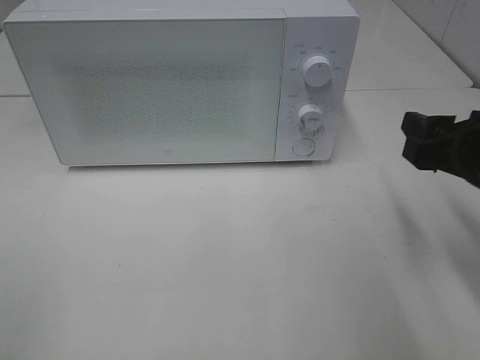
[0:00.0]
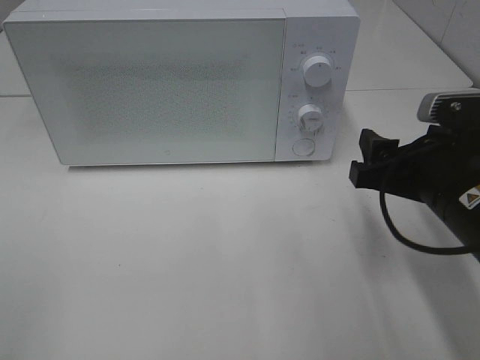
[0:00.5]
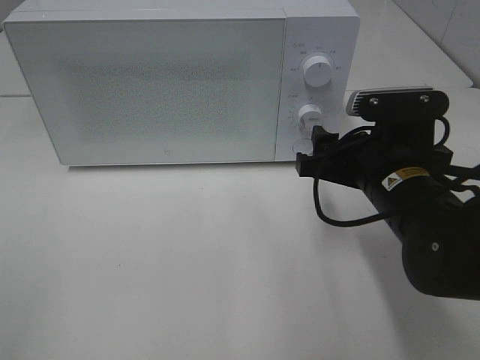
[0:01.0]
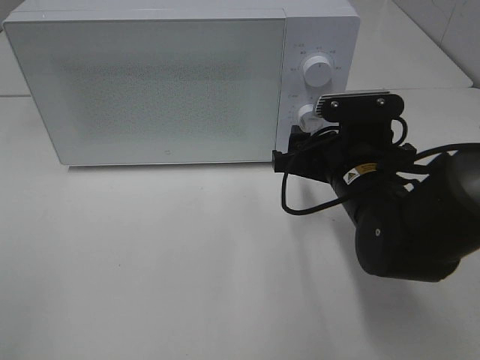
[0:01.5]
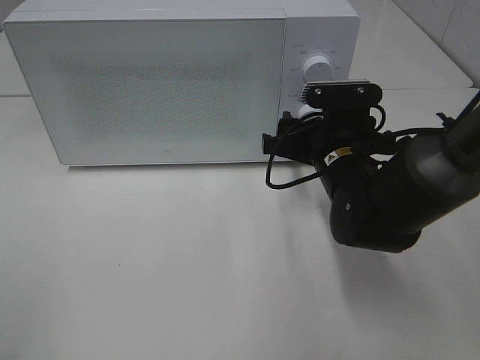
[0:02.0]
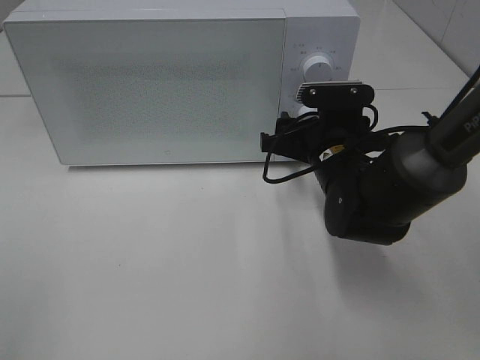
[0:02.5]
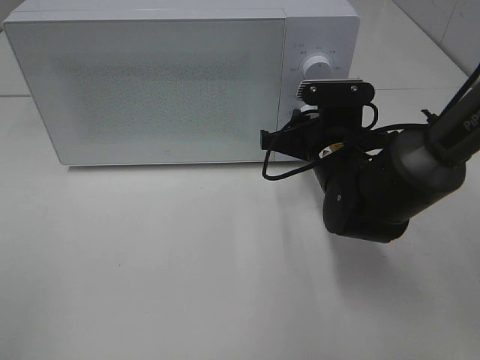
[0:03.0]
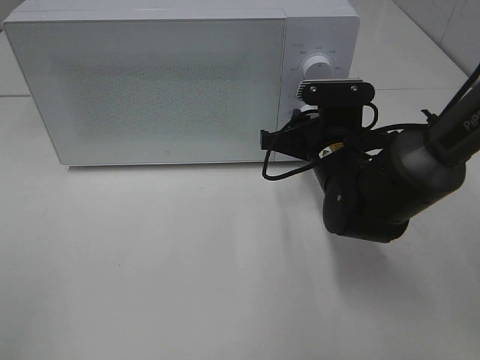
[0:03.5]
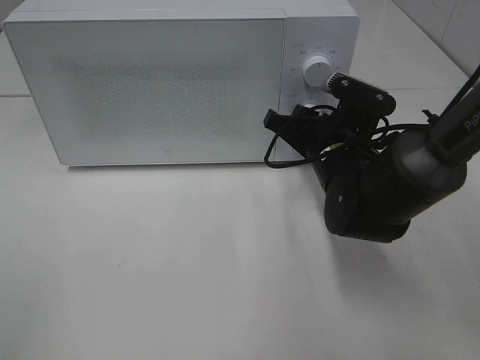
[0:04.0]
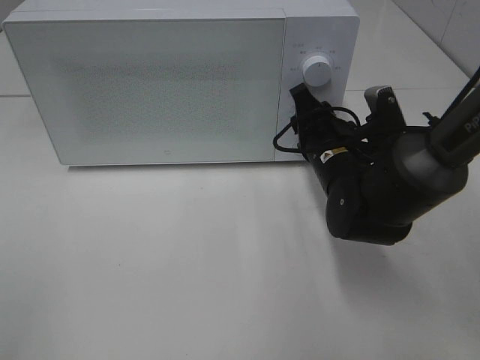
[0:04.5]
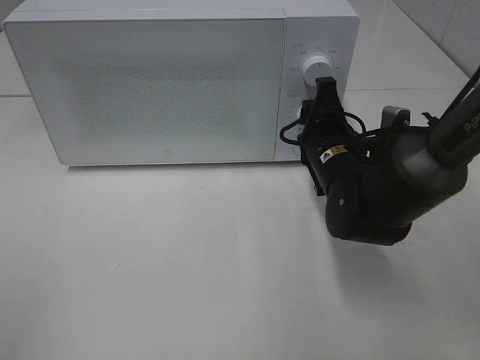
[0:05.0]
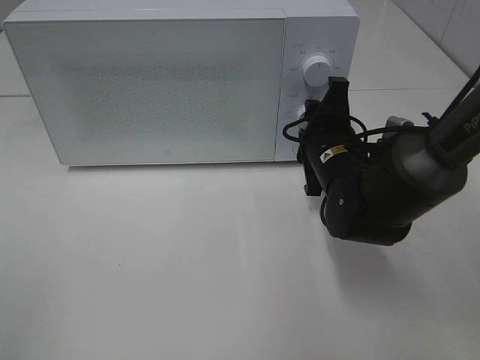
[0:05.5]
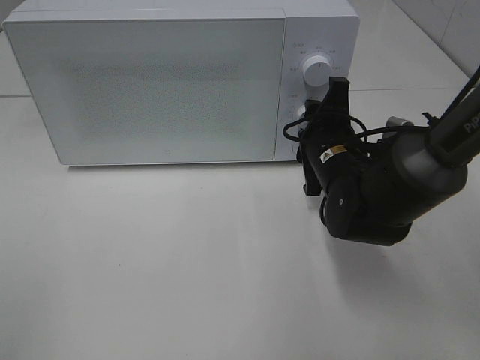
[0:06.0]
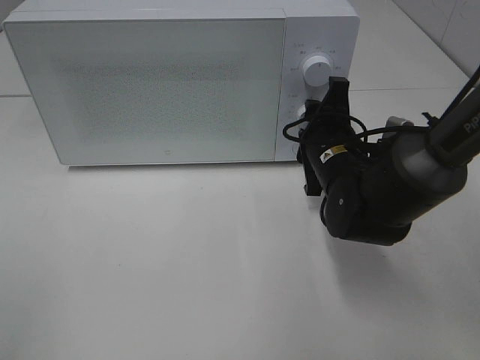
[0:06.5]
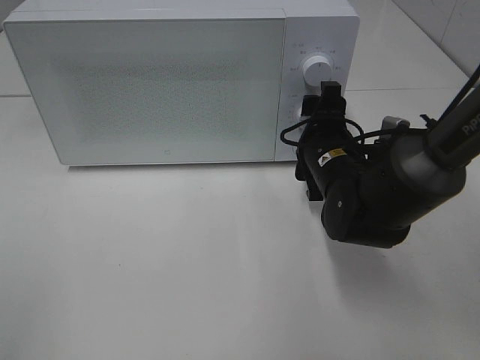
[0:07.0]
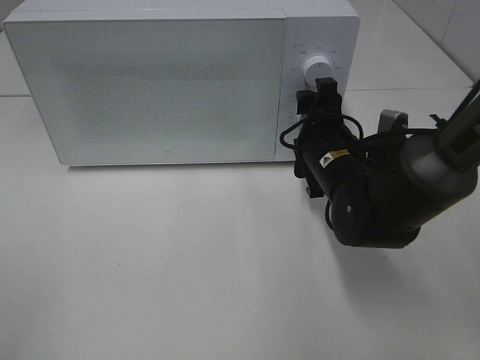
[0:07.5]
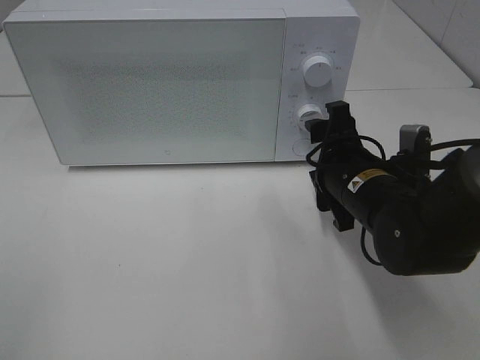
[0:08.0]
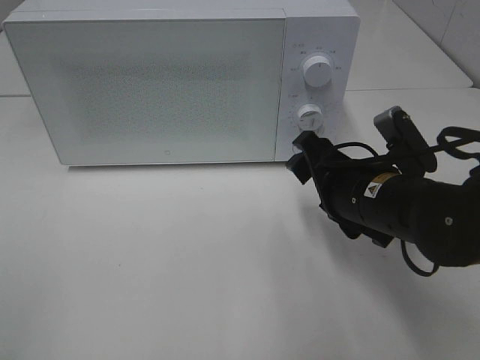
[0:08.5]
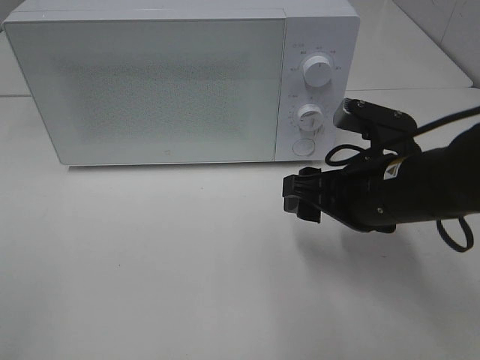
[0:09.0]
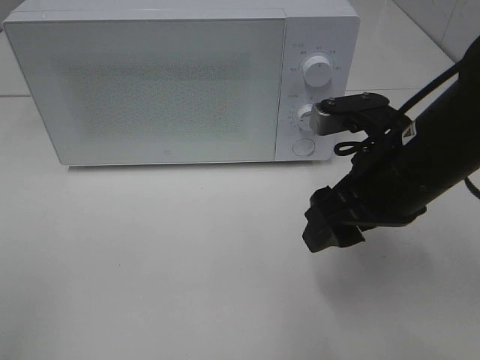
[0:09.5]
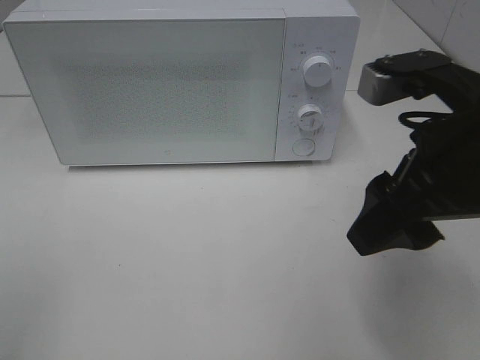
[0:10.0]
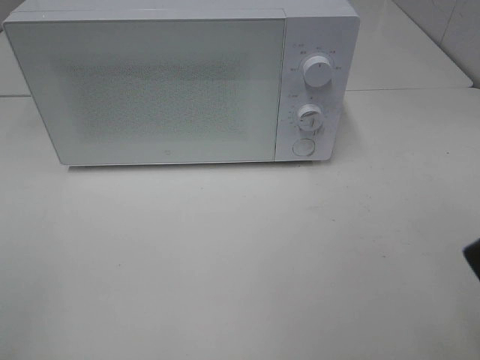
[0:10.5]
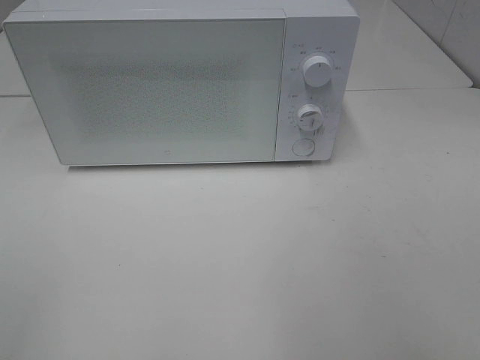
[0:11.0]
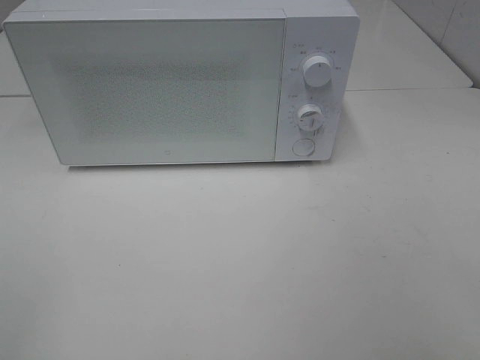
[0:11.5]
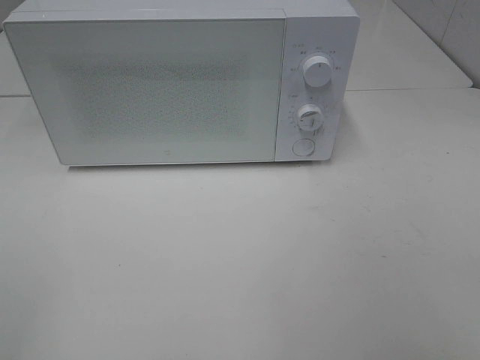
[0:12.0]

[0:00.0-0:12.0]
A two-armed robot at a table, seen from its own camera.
Task of the whole recording: Heat Sandwich.
Step, 0:00.0 to 0:08.0: Right hand: twist timer button.
0:00.0 to 0:02.0: The right gripper moves to the left, forward and downward, approximately 20 cm.
0:02.0 to 0:04.0: The right gripper closes up.
0:06.0 to 0:08.0: The right gripper heads backward, covering some 5 cm.
0:08.0 to 0:10.0: The right gripper goes approximately 15 cm upward and backward.
0:10.0 to 0:12.0: The right gripper shifts about 20 cm backward and to the right.

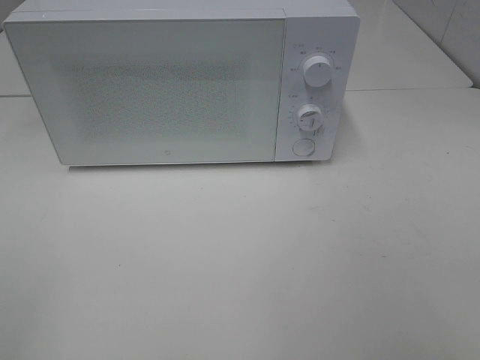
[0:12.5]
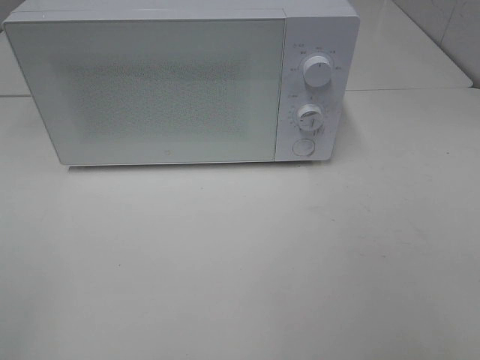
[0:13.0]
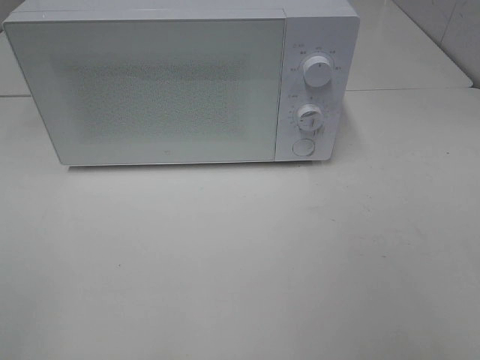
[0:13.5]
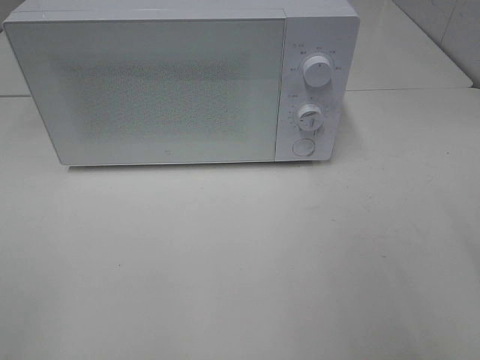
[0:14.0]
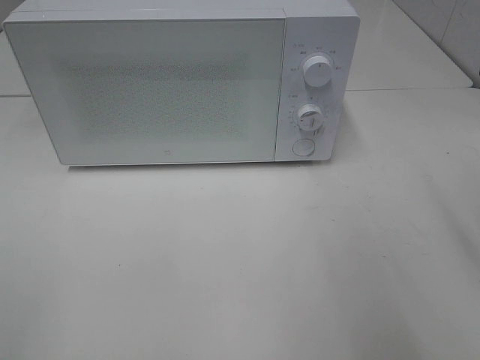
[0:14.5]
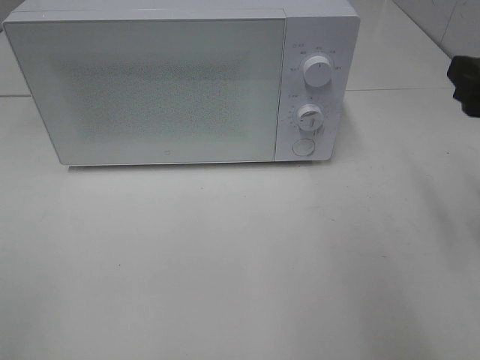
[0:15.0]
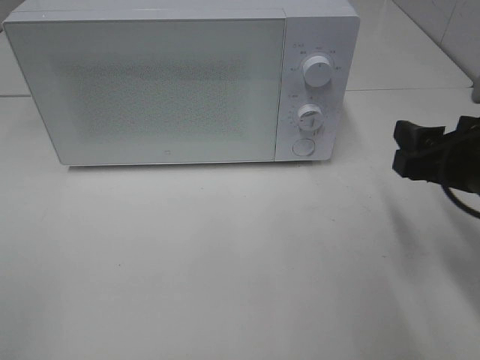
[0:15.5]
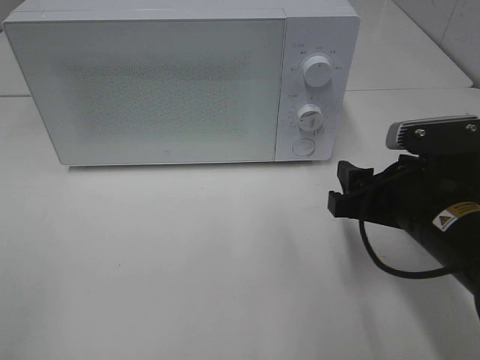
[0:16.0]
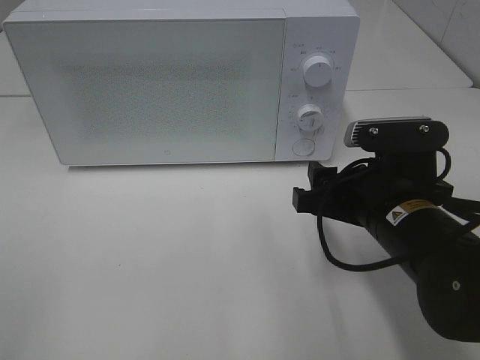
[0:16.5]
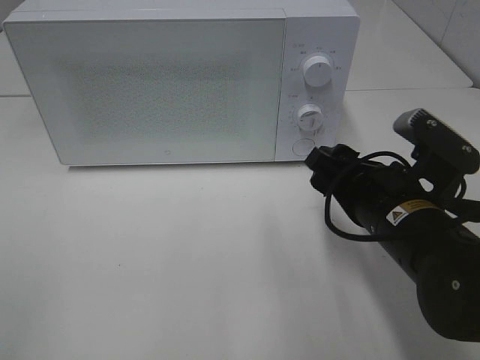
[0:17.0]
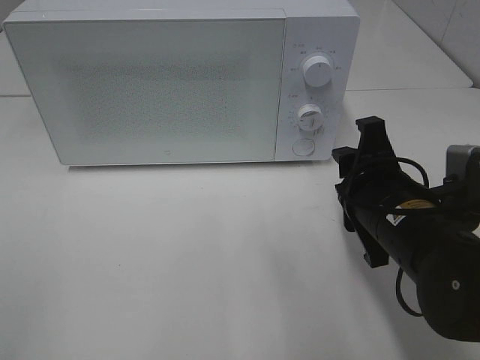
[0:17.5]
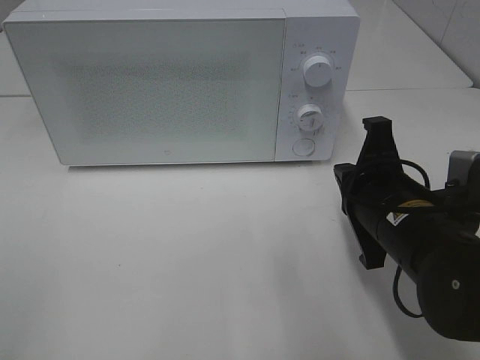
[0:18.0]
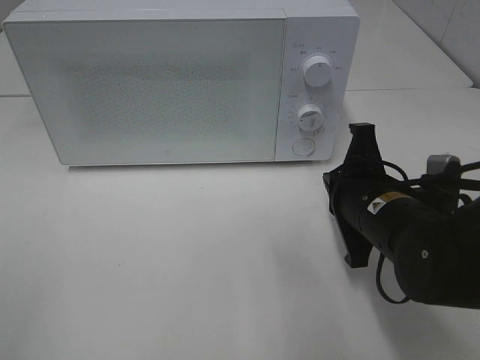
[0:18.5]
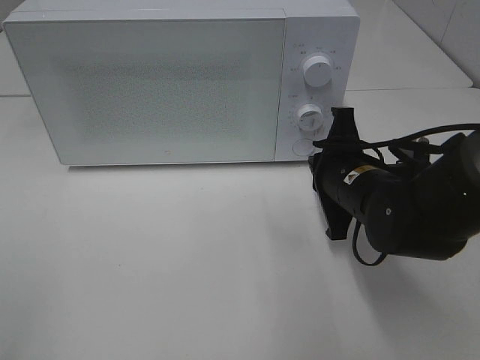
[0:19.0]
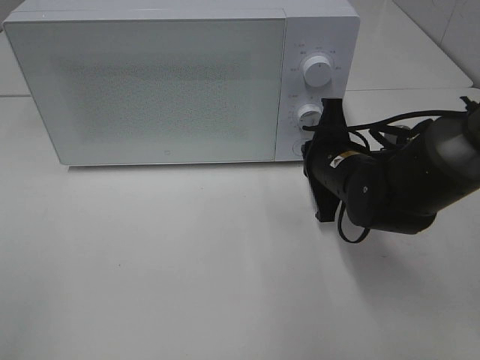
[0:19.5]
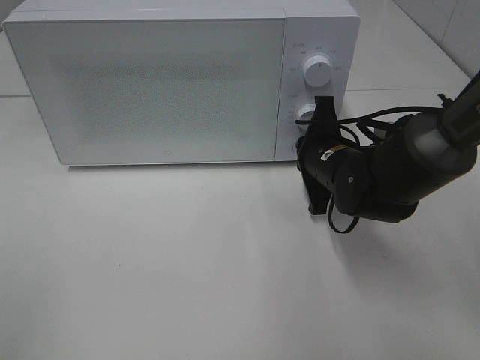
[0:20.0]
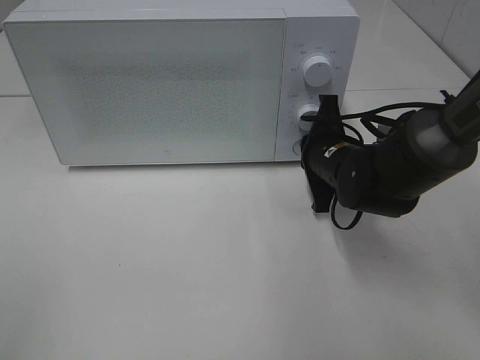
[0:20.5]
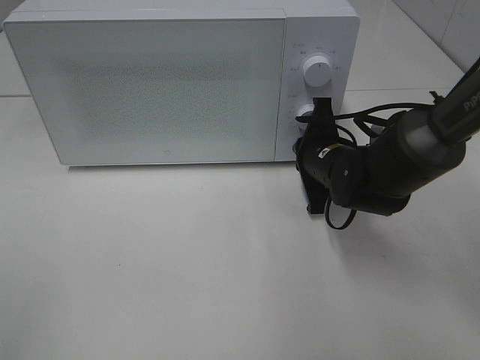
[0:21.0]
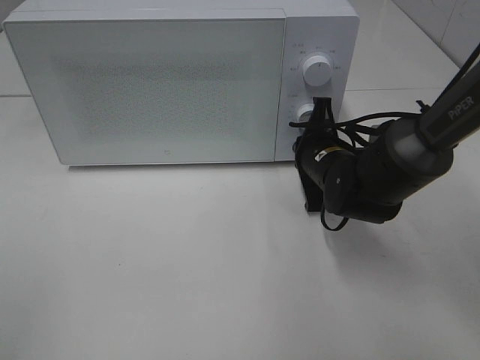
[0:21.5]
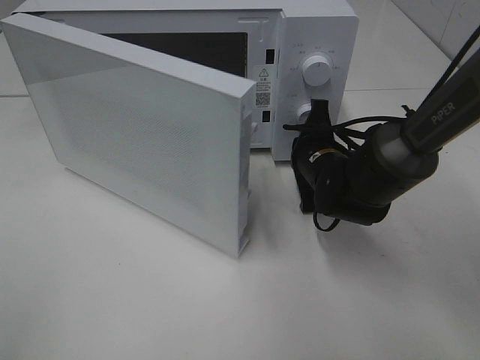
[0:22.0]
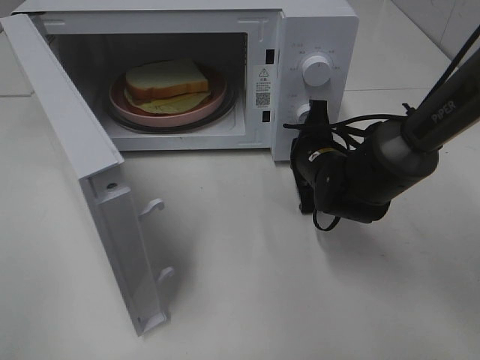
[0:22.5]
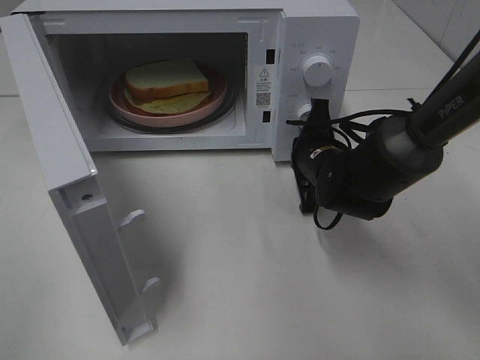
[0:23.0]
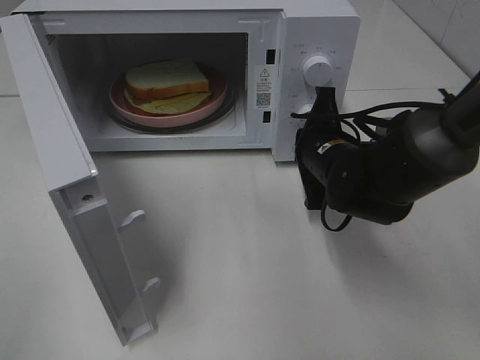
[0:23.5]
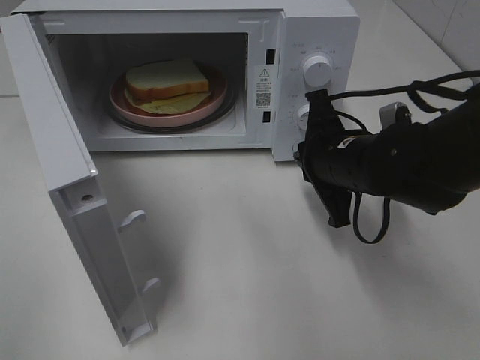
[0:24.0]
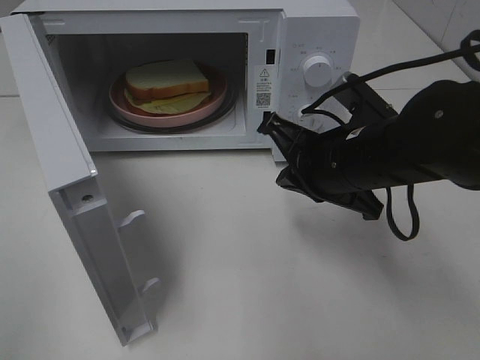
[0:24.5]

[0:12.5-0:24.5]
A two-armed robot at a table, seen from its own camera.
Task of the whole recording: Heat Sandwich.
Step, 0:12.5 to 0:23.5: Right hand: press the switch.
0:14.5 to 0:16.5: The right gripper moves downward and to the left, some 20 cm.
0:16.5 to 0:18.5: The right gripper closes up.
0:18.5 to 0:20.5: The right gripper moves forward, about 10 cm.
0:22.5 to 0:24.5: The right gripper is displaced backward and upward by approximately 15 cm.

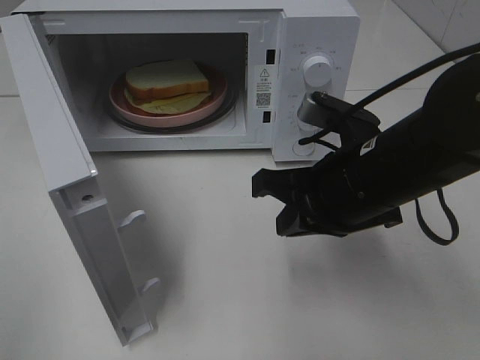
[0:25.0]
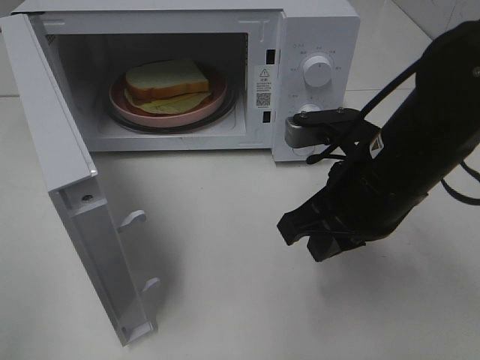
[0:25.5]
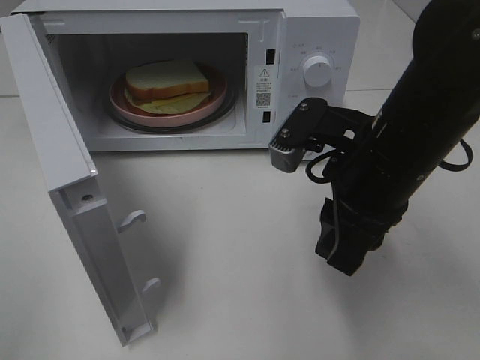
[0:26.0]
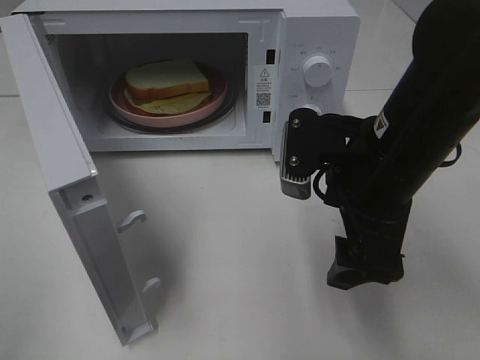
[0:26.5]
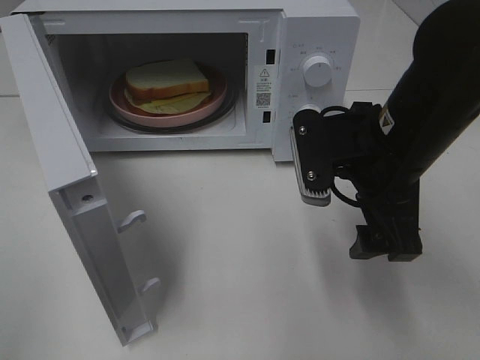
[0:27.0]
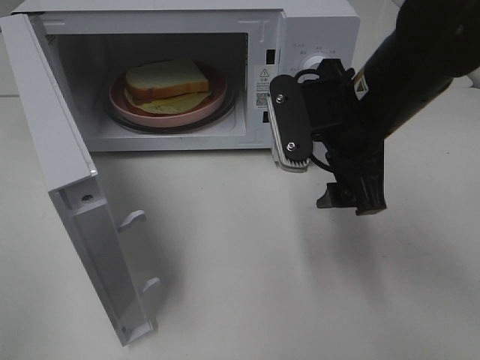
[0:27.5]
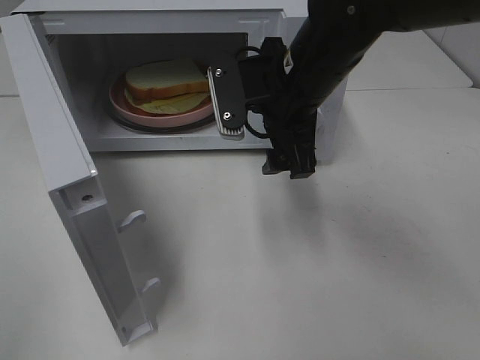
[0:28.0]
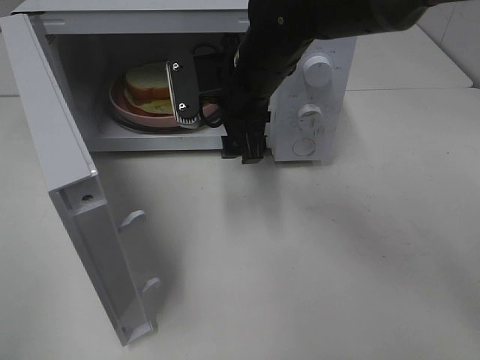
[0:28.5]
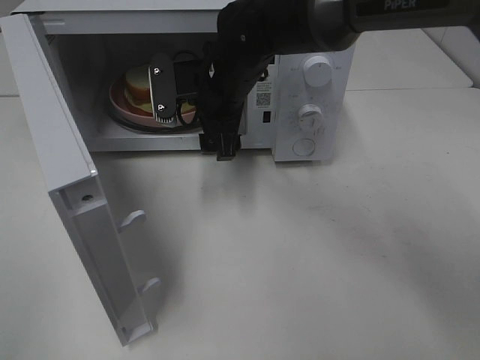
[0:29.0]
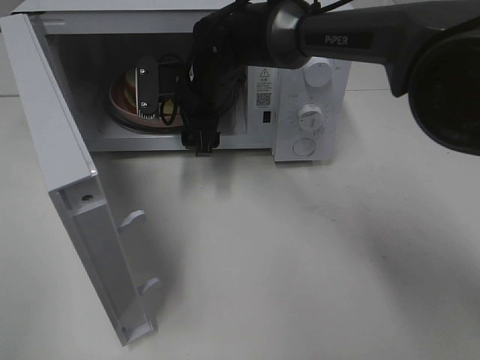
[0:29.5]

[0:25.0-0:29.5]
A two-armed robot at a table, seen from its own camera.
Task of the whole recording: Heat Sandwich.
0:25.0 to 0:27.0: The right gripper opens up.
0:27.0 to 0:29.5: The right gripper is displaced forward and to the left by roughly 25 cm.
